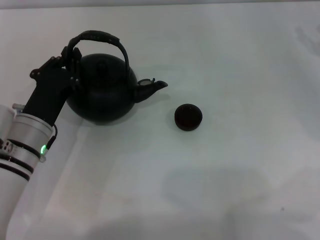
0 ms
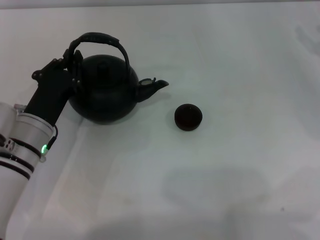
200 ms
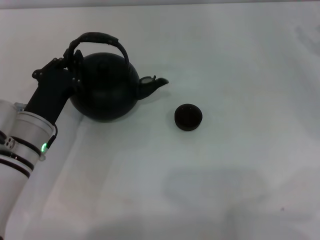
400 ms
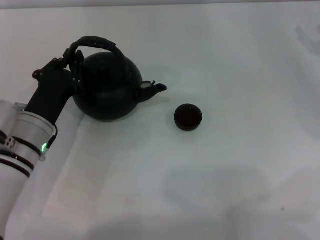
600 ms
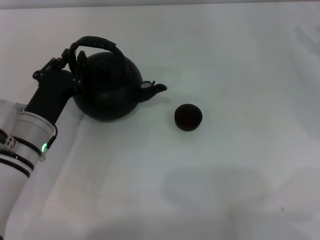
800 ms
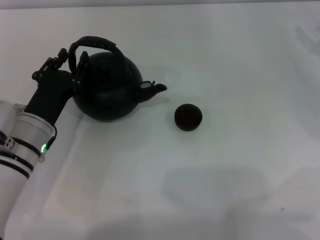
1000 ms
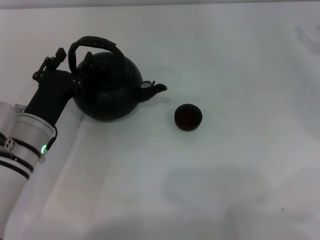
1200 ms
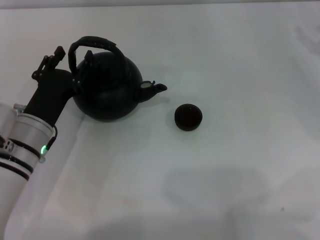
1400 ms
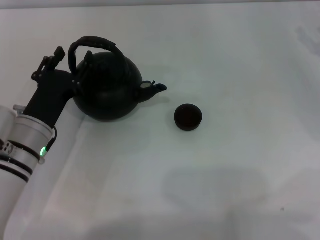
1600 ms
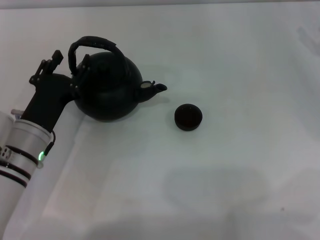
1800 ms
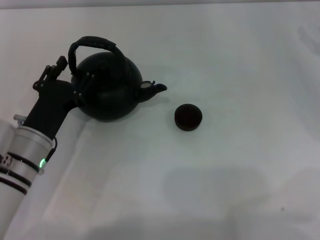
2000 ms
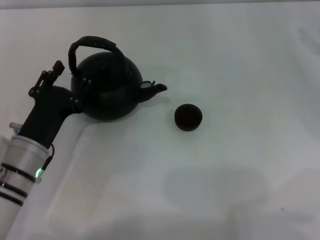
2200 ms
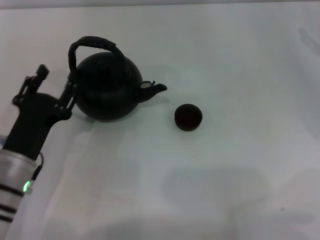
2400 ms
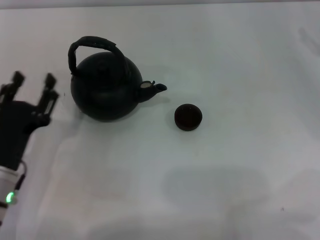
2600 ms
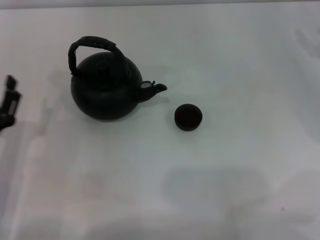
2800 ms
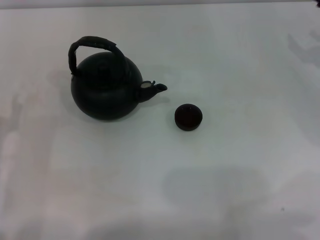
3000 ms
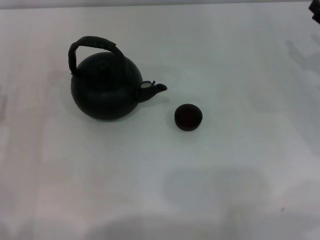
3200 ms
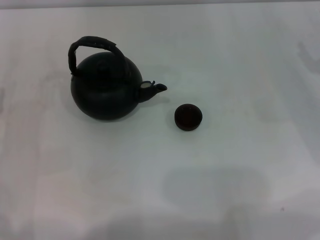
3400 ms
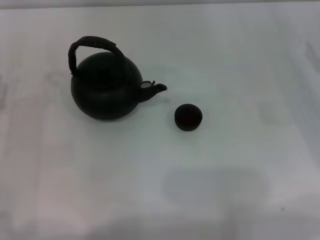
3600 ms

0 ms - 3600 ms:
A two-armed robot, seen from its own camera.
Task of the whole recording: Grasp the handle of the teapot with one hand and pour tea into the teacup.
Step, 0 ms - 2400 ms: Put down the teapot with the left gripper.
0 ms - 1800 ms: The left gripper opens.
1800 ms - 3600 ms: The left gripper heads to the left, covering roughly 10 cm.
